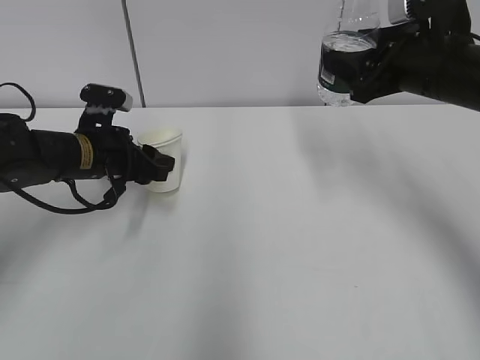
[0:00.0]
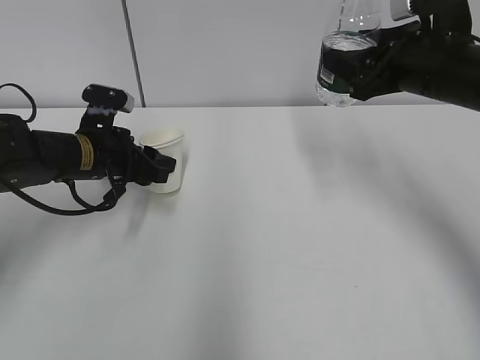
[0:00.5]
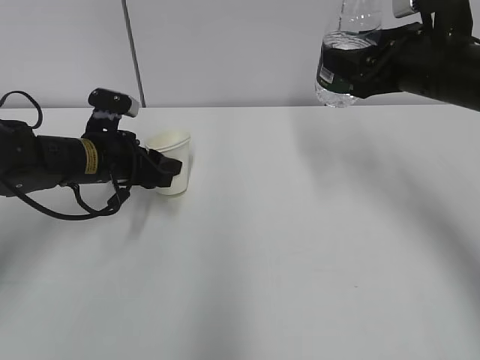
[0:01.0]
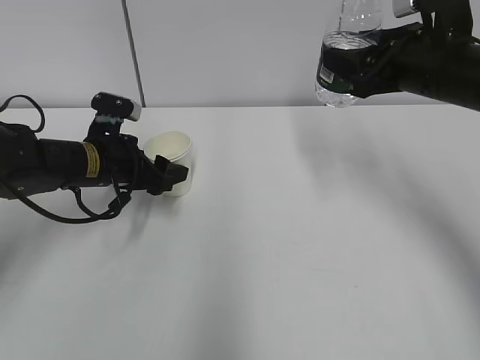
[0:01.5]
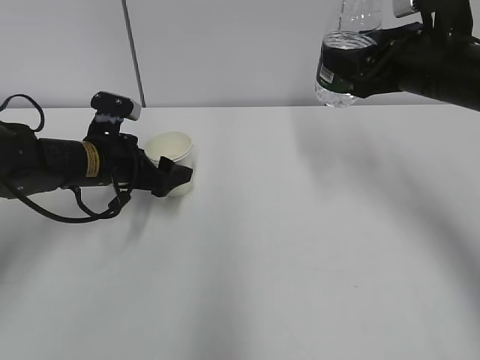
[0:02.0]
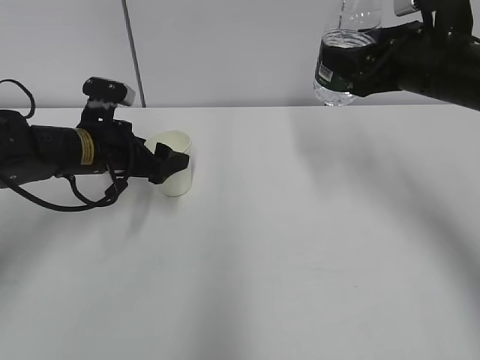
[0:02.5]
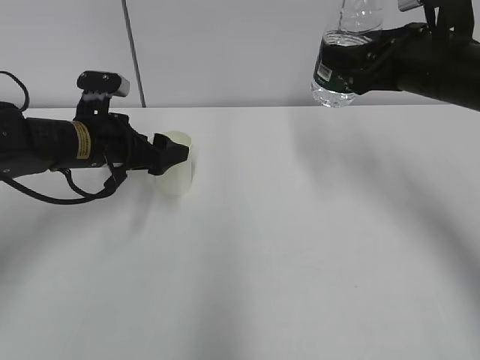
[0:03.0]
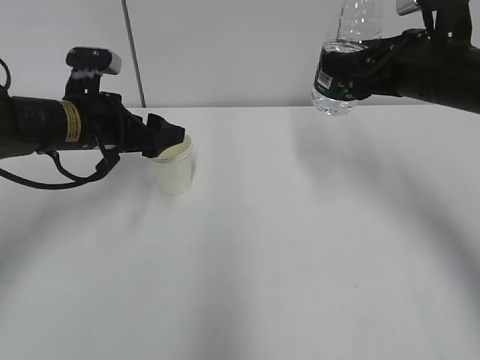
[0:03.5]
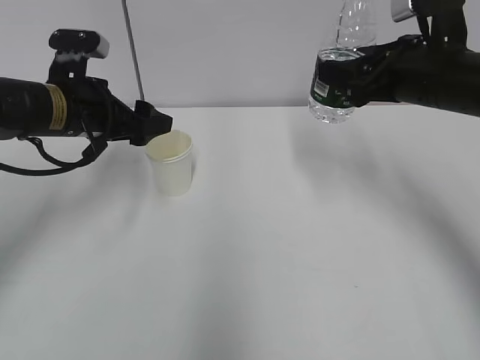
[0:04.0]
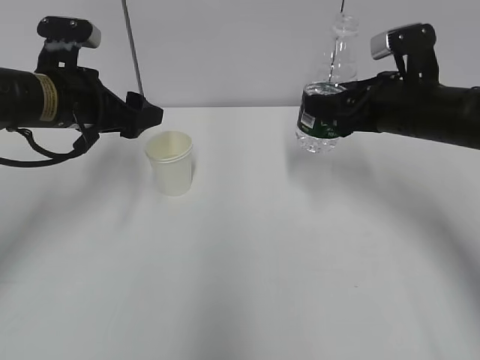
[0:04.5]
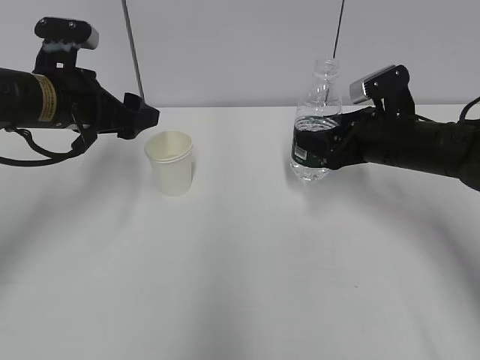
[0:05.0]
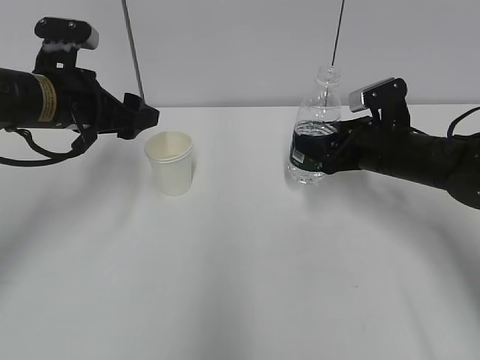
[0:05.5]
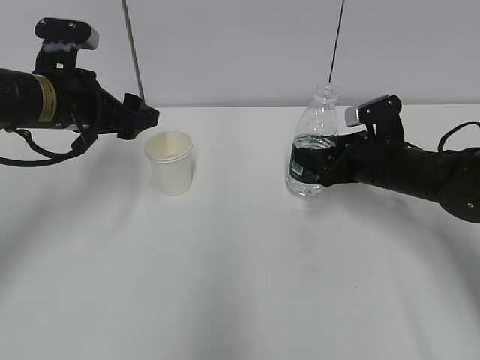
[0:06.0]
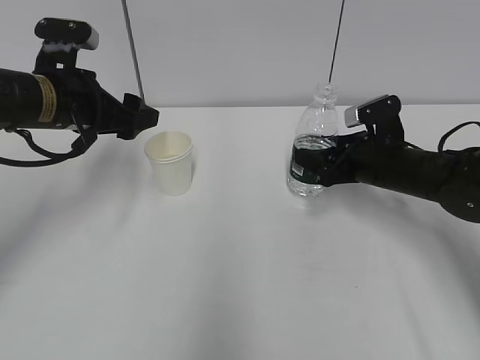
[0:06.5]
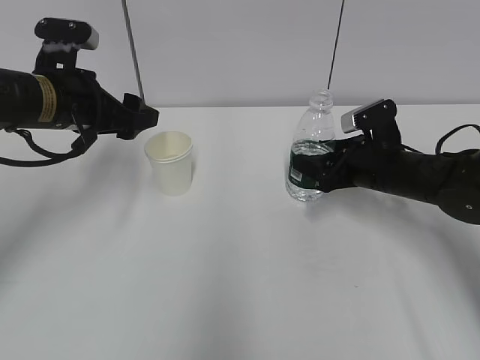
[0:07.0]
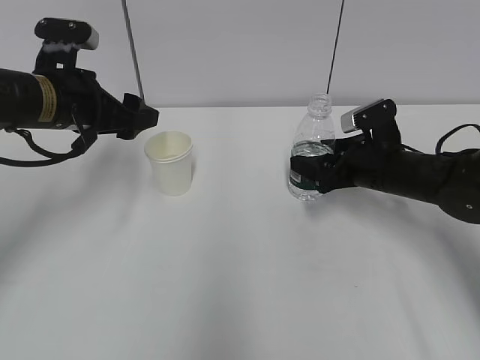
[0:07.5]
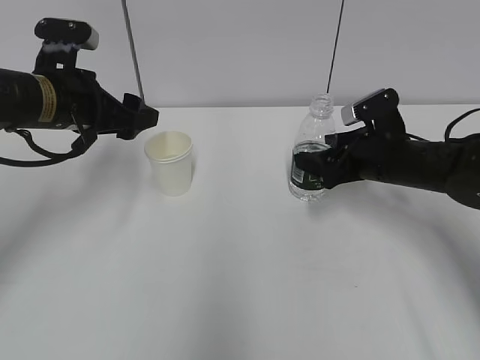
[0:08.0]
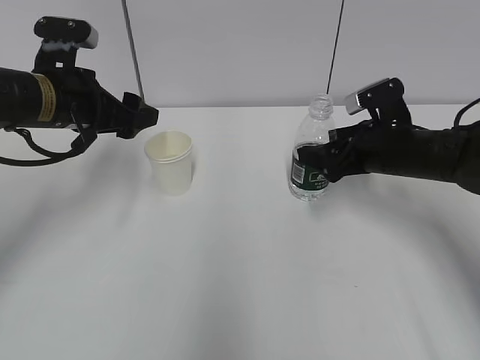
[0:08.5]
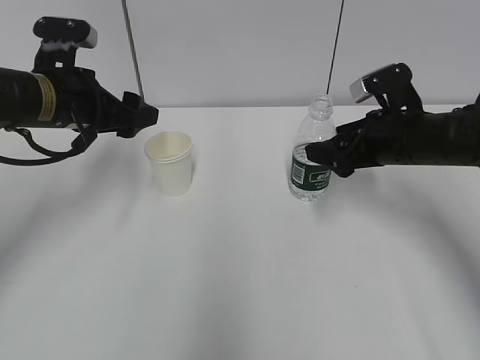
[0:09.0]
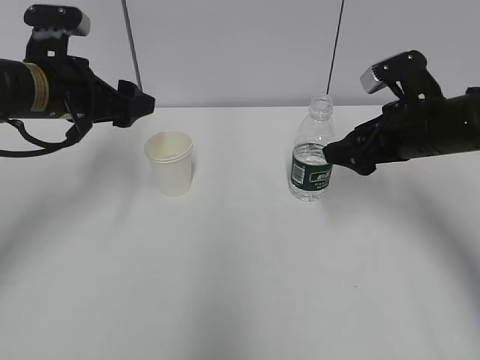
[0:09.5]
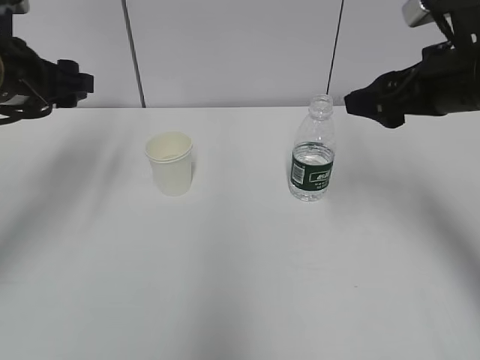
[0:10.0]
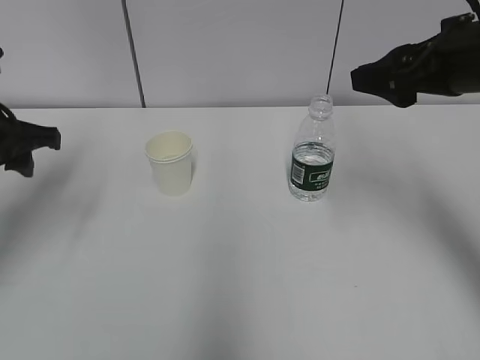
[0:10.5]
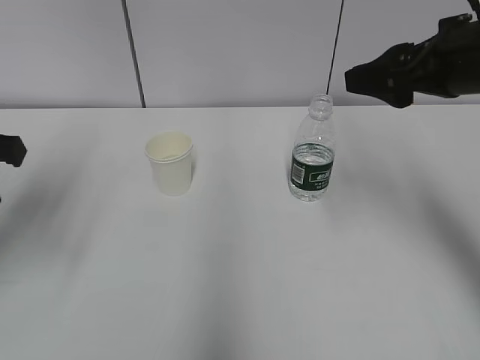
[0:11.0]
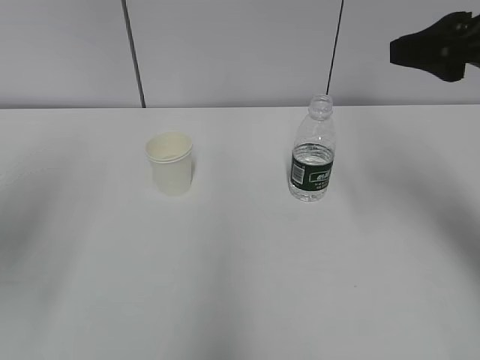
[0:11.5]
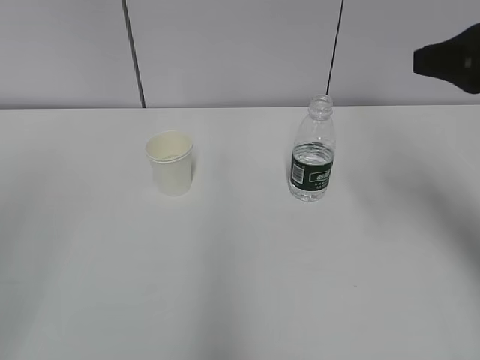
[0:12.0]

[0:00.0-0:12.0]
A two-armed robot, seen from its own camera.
0:00.0 to 0:02.0: The left gripper opens.
0:02.0 to 0:04.0: The left gripper is displaced upward by about 10 cm.
0:04.0 to 0:06.0: The right gripper shifts approximately 15 cm downward.
0:06.0 to 0:08.0: The right gripper opens up.
0:08.0 to 0:10.0: The left gripper ends up roughly 5 cm from where it was; the right gripper travels upward and backward by approximately 15 cm.
0:10.0 to 0:12.0: The left gripper travels backward by about 30 cm, and closes its fingers. Meanwhile the right gripper shifts approximately 5 cm upward and backward.

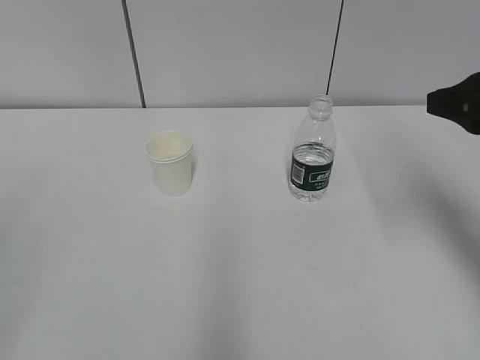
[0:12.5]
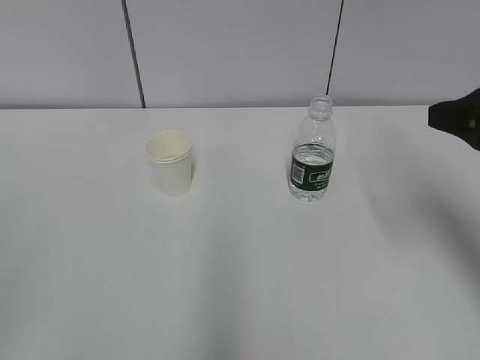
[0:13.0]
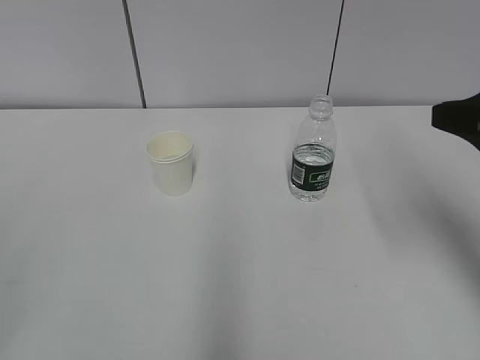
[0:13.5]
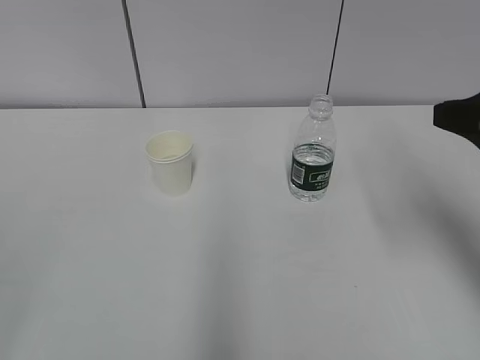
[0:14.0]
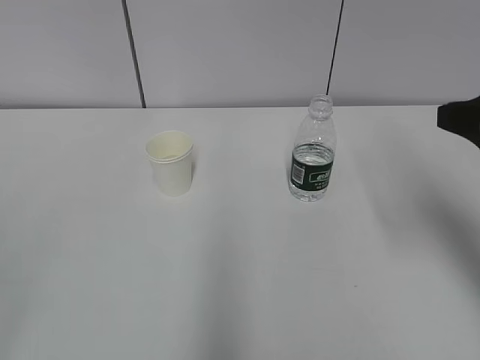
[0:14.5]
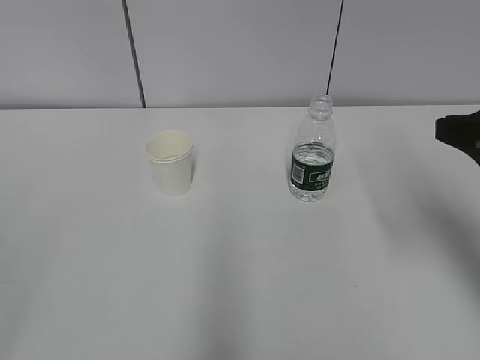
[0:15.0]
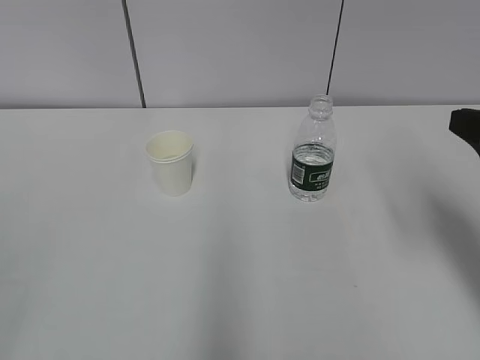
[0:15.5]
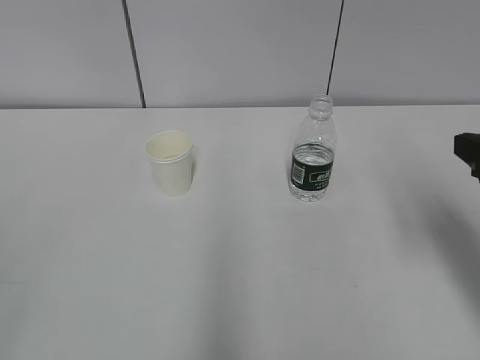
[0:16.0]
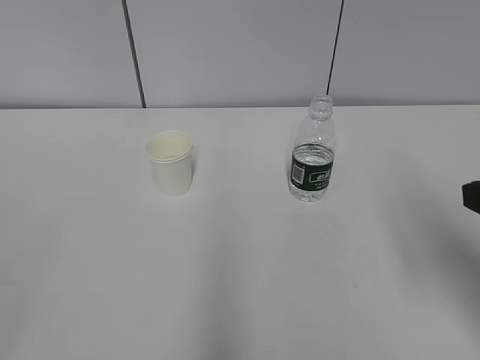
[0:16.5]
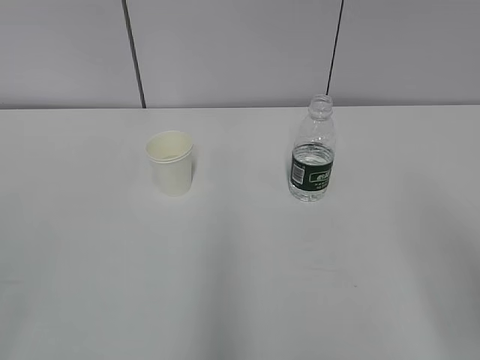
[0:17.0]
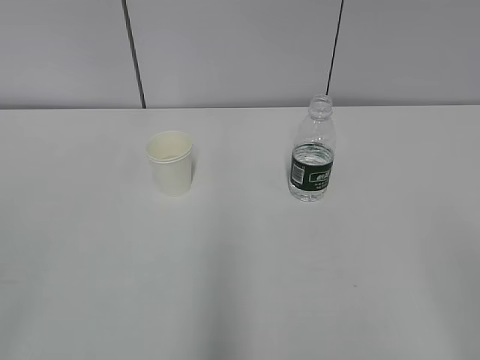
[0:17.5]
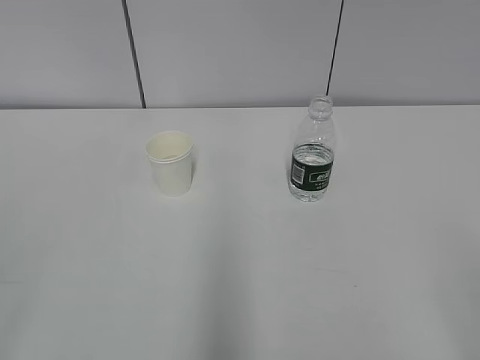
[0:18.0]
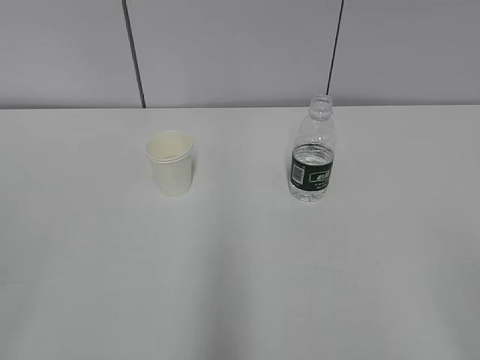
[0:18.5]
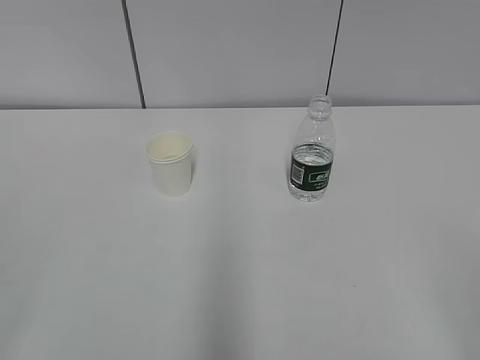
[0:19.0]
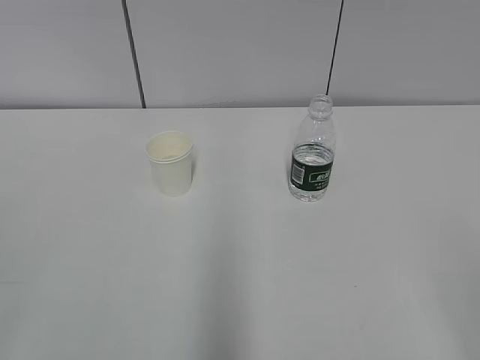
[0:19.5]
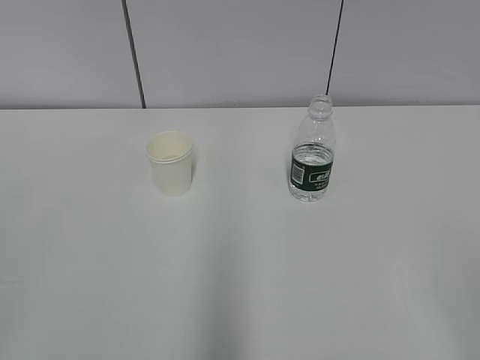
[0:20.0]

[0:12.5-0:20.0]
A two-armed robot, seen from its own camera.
0:12.5 to 0:14.5: The grippers stay close to where they were, moving slightly.
0:14.5 to 0:16.5: The right gripper heads backward, covering some 5 cm.
0:16.5 to 0:18.0: The right gripper moves backward, some 20 cm.
0:18.0 to 0:20.0: Neither gripper changes place.
